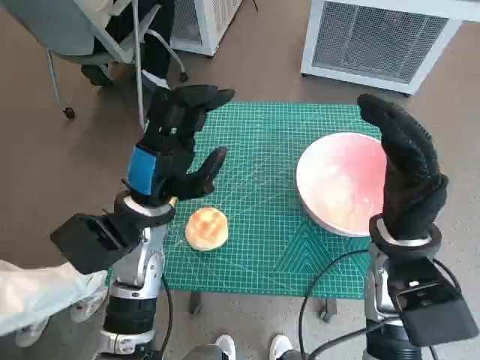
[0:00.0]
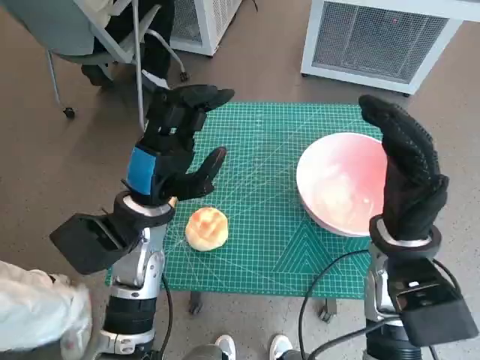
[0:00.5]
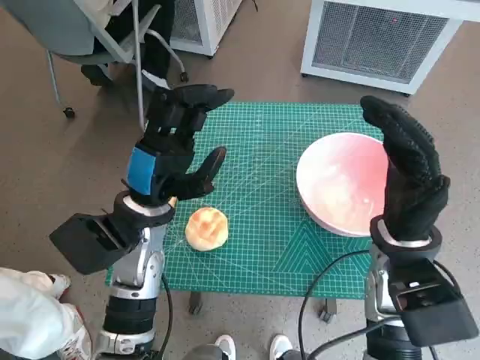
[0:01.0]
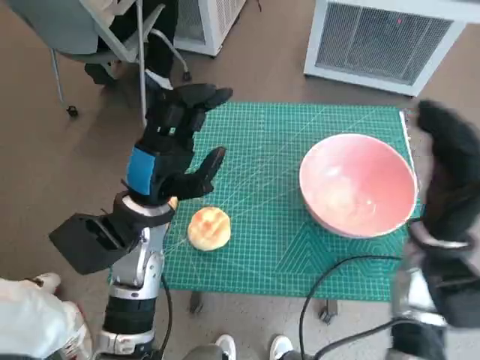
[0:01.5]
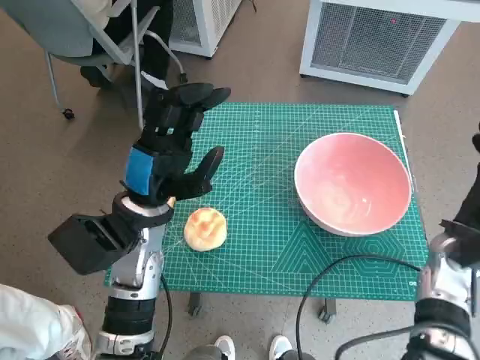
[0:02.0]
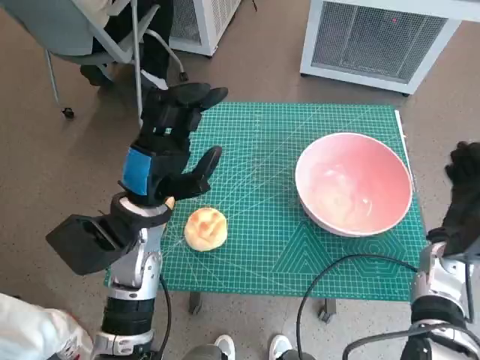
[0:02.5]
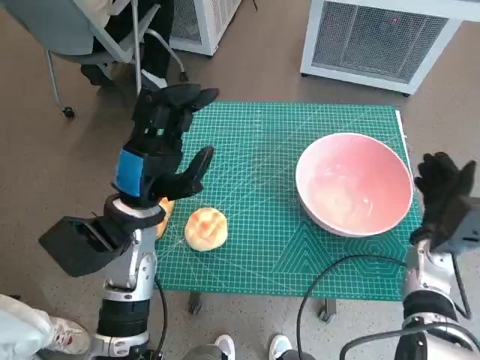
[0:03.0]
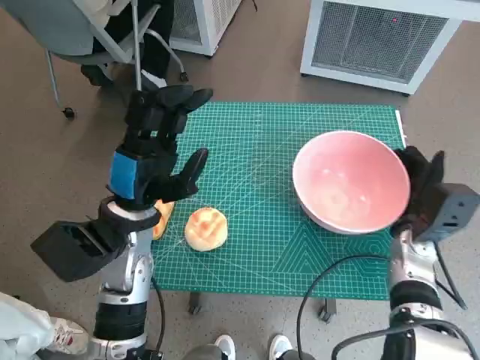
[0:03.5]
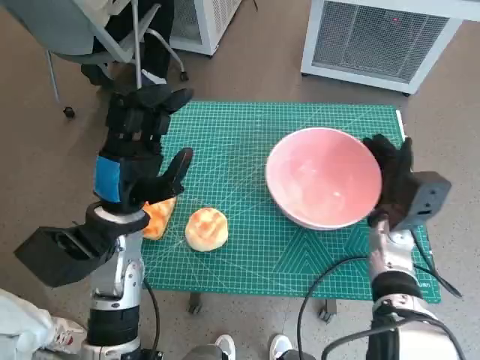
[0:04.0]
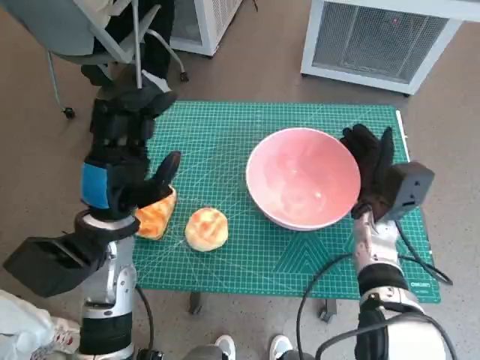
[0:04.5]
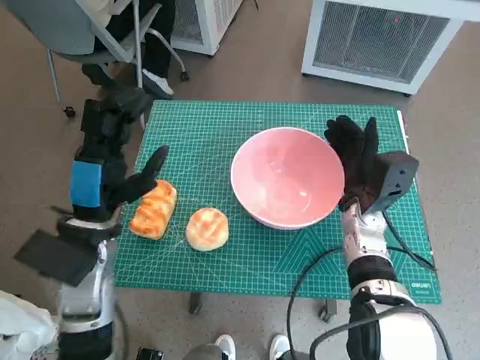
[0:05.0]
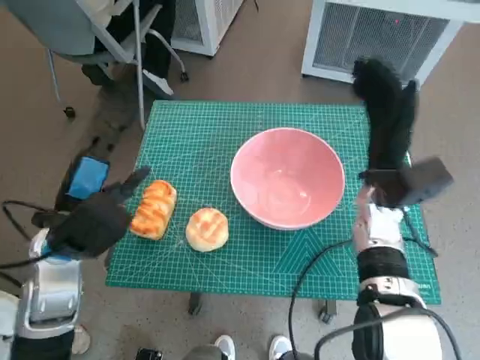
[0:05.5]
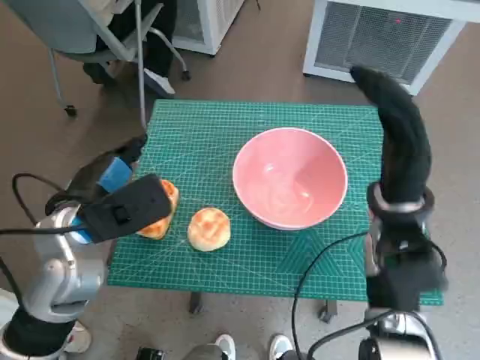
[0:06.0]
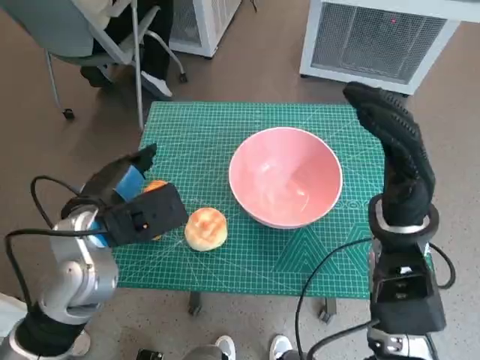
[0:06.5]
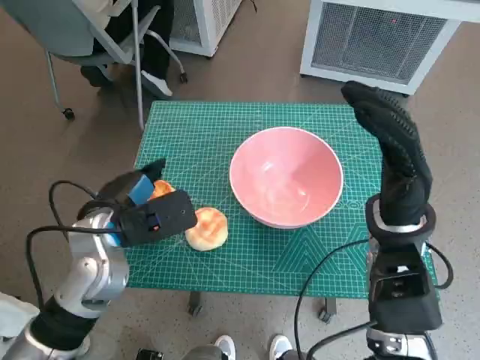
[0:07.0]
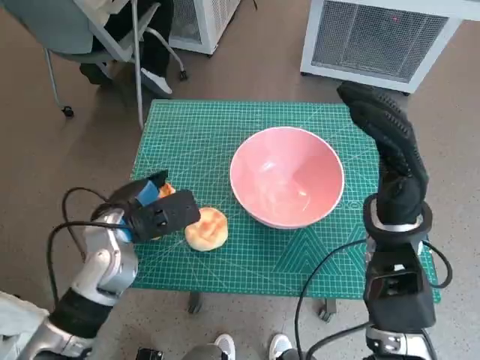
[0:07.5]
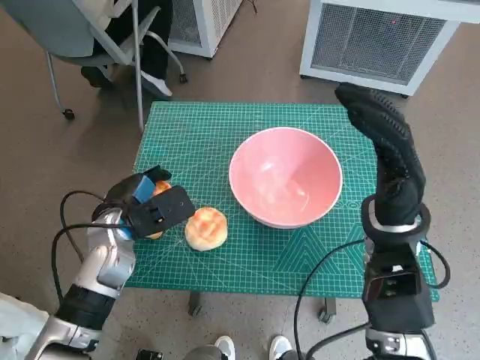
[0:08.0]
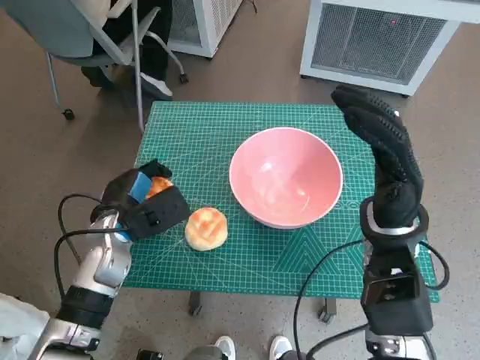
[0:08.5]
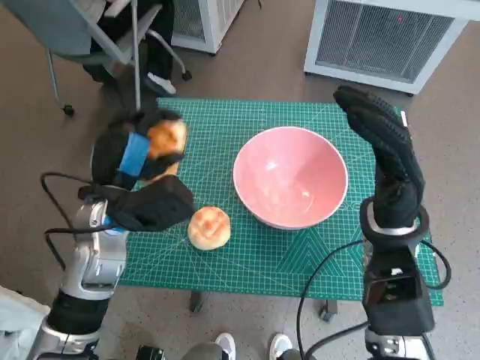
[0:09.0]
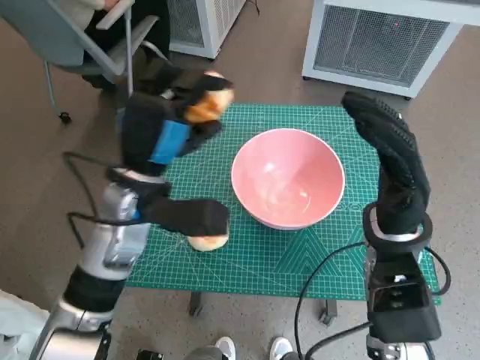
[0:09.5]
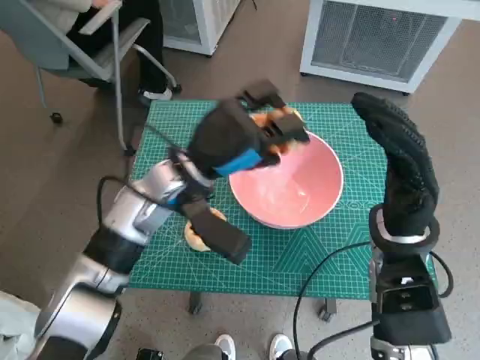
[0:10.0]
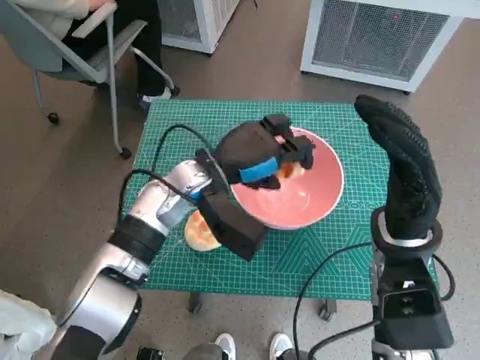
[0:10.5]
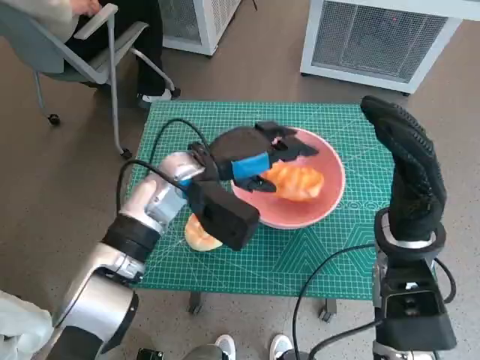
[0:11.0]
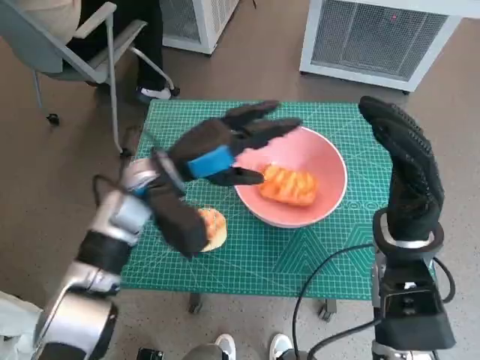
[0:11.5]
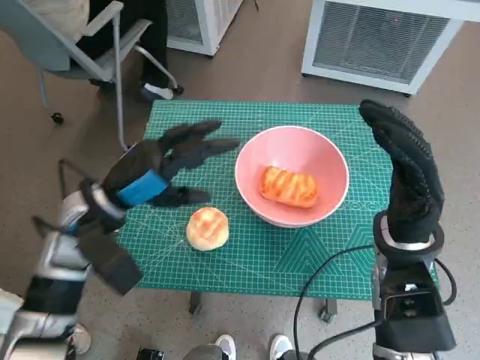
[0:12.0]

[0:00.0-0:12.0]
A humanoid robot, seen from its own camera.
Task of the whole recording: Push the bowl to the center of the table and put the bread into the bowl.
Step, 0:00.0 to 0:05.0: Move the pink bowl to the center of table with right hand.
Step, 0:05.5 to 0:08.0: Grasp the long bread with left hand.
Step, 0:08.5 to 0:11.0: Place the long bread in pink bowl with left hand.
0:02.0 to 0:04.0: The right hand is displaced to the left by roughly 5 cm.
0:04.0 to 0:06.0: The right hand is displaced upward by roughly 10 cm.
0:06.0 to 0:08.0: The left hand moves downward, roughly 10 cm.
0:08.0 to 0:10.0: The left hand is displaced to the right and upward by approximately 15 cm.
0:10.0 to 0:12.0: The left hand is displaced to the left by roughly 10 cm.

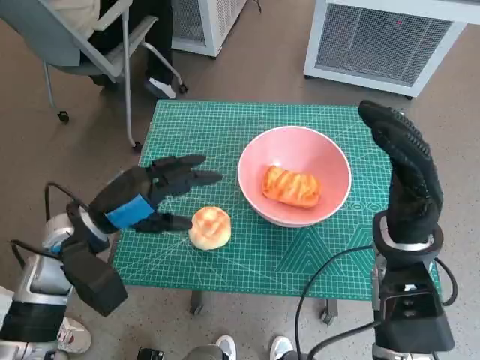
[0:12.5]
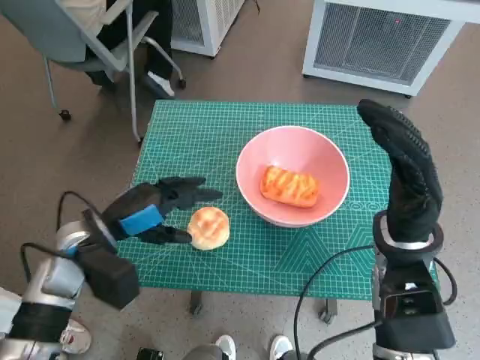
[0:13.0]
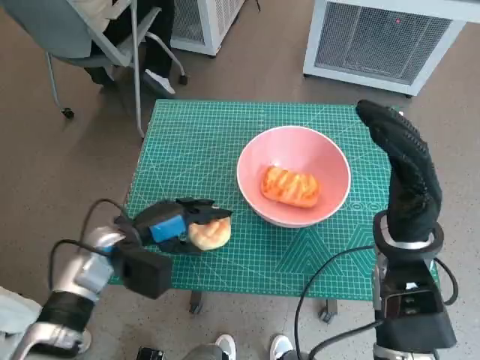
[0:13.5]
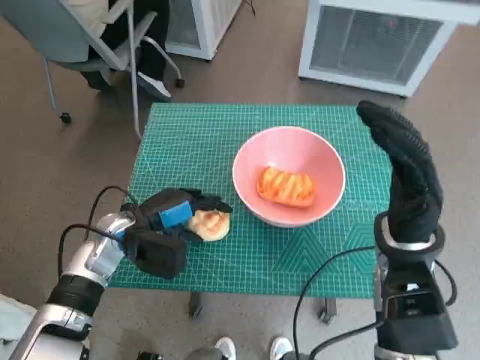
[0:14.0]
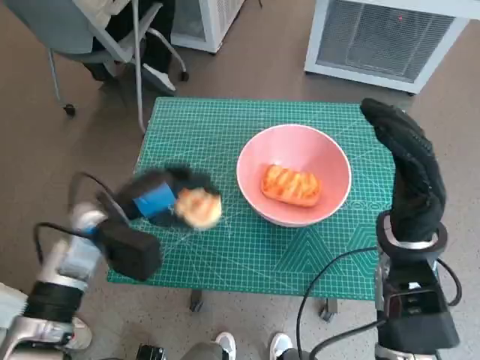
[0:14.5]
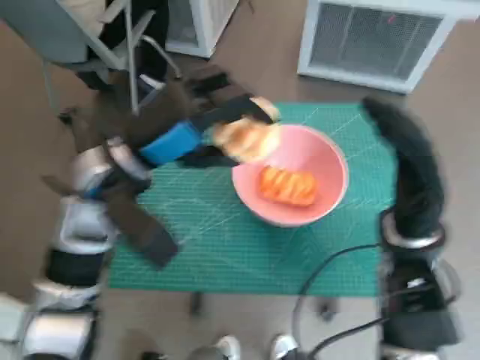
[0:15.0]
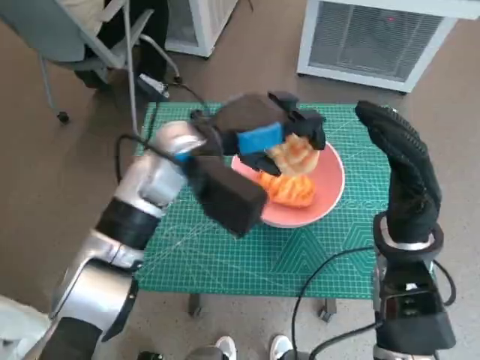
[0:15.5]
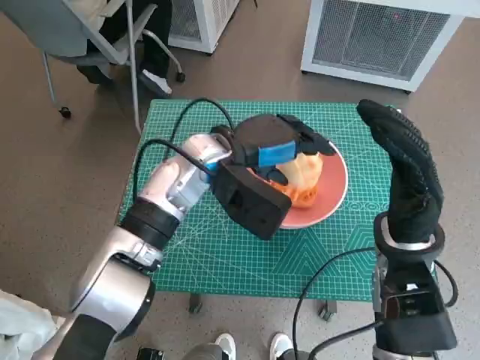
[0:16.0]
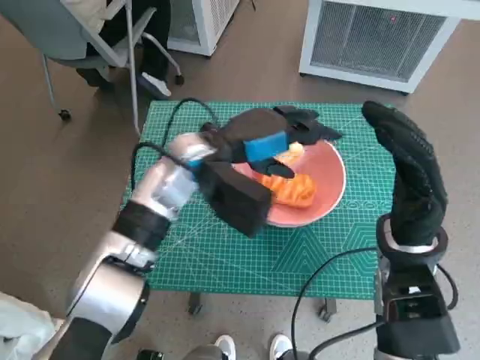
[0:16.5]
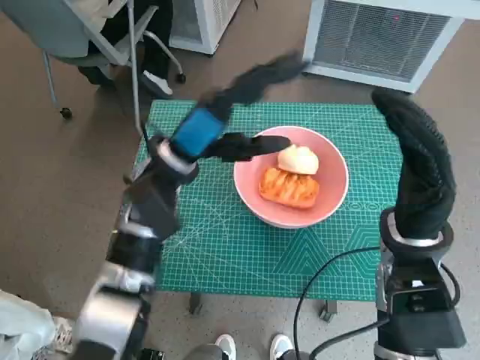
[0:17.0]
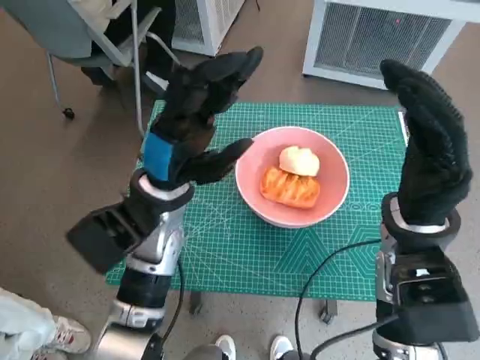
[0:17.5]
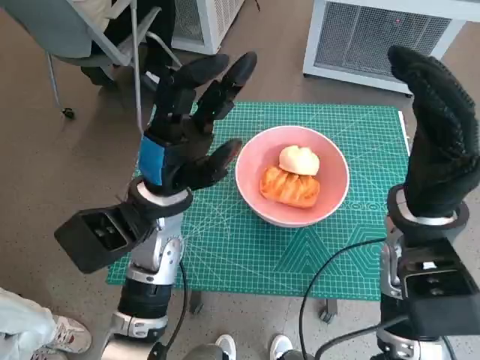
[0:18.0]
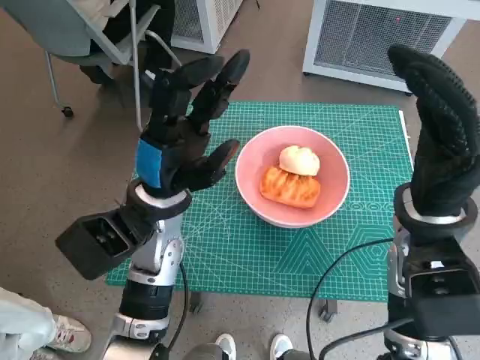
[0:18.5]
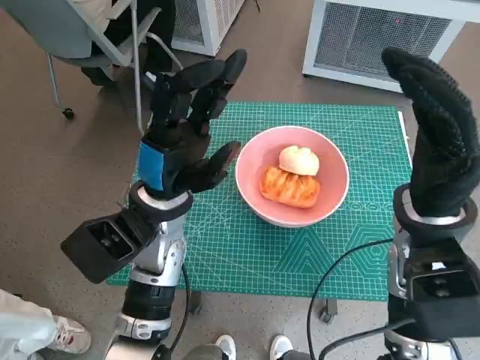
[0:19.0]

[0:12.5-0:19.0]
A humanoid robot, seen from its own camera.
Task of the whole recording: Push the bowl to the center of the table and put the bread into the bowl.
Step, 0:12.5 to 0:14.0: Grasp the round bread with left hand.
Step, 0:14.5 to 0:16.0: Place the round bread in pink bowl with left hand.
0:14.5 to 0:17.0: The left hand heads to the right and upward, covering roughly 10 cm.
0:17.0 to 0:19.0: The left hand changes place by approximately 5 cm.
